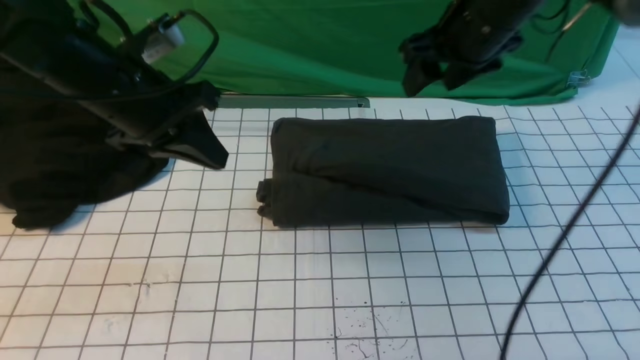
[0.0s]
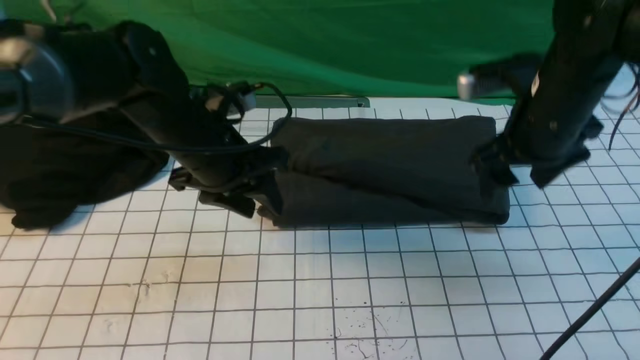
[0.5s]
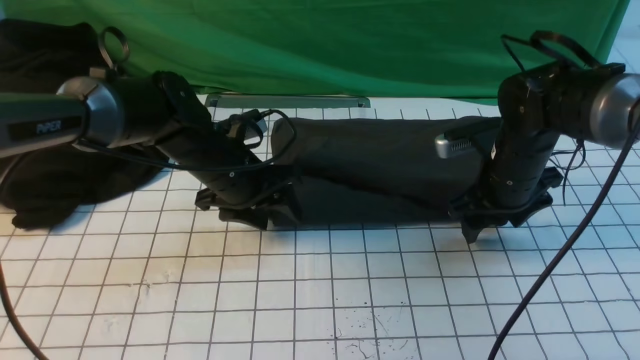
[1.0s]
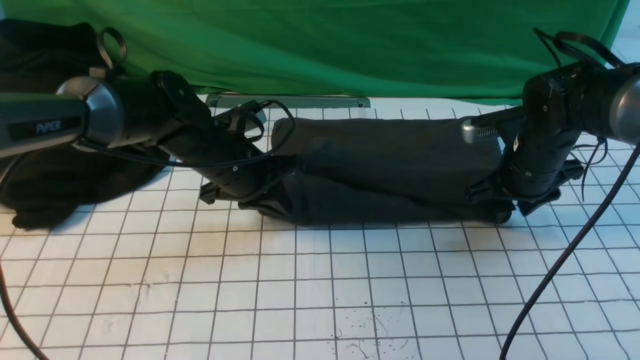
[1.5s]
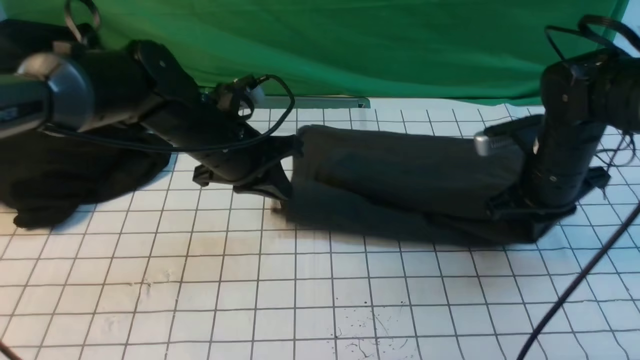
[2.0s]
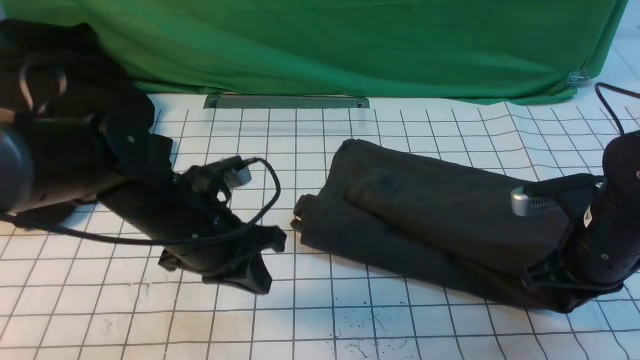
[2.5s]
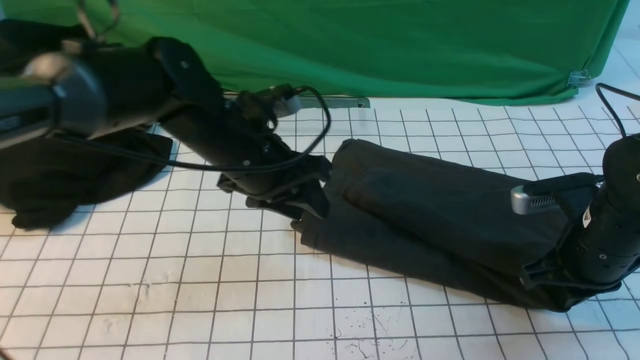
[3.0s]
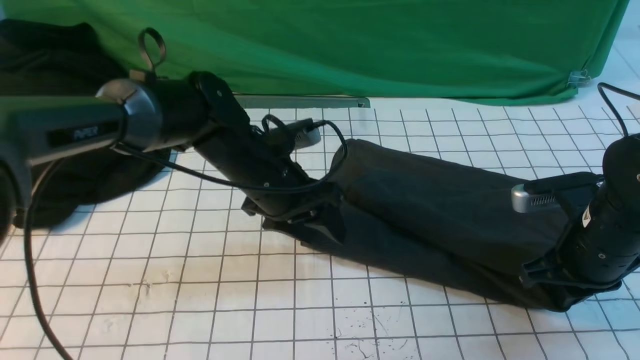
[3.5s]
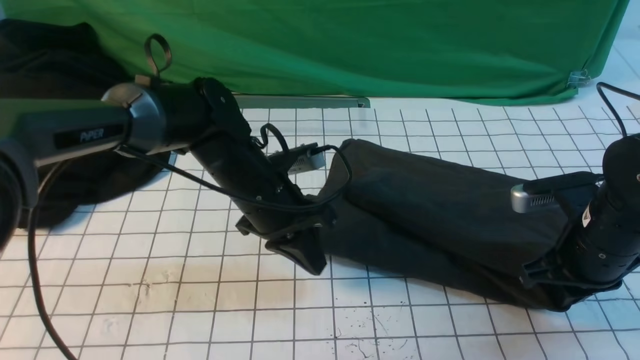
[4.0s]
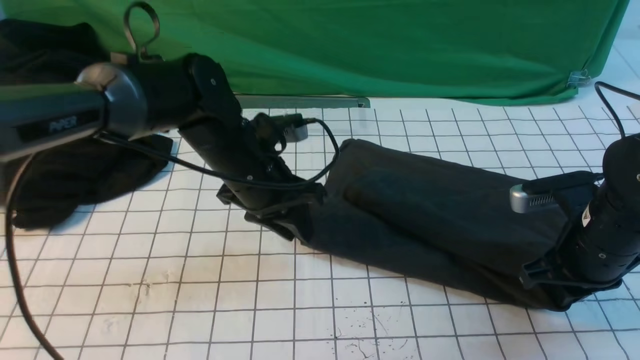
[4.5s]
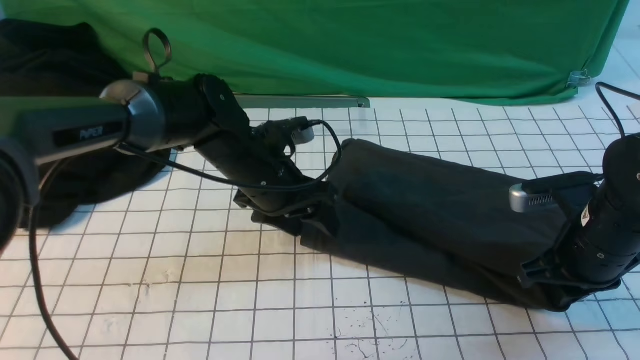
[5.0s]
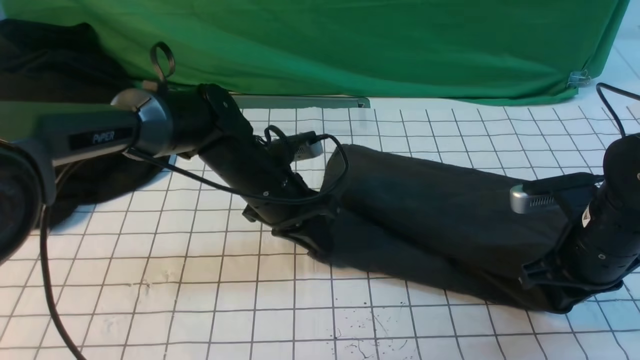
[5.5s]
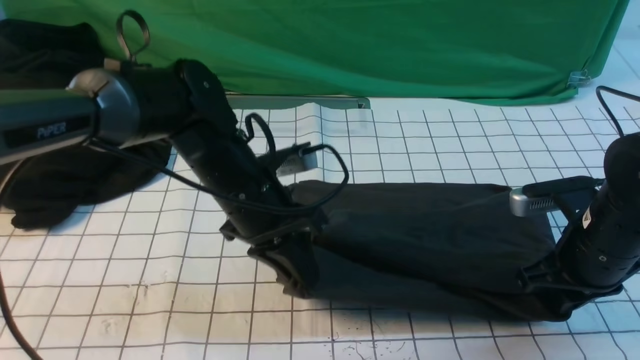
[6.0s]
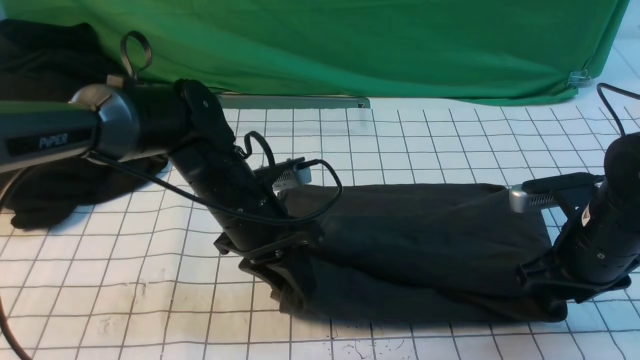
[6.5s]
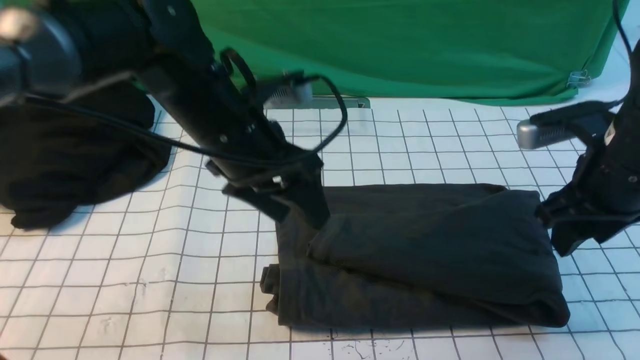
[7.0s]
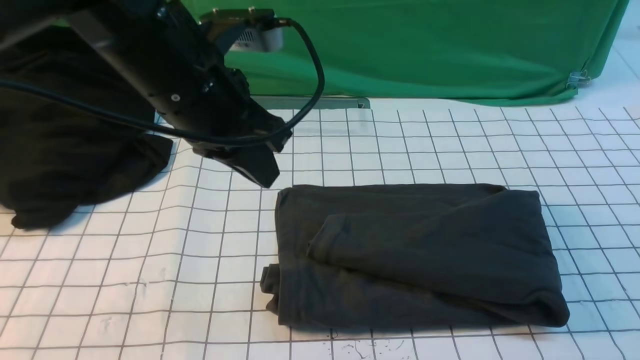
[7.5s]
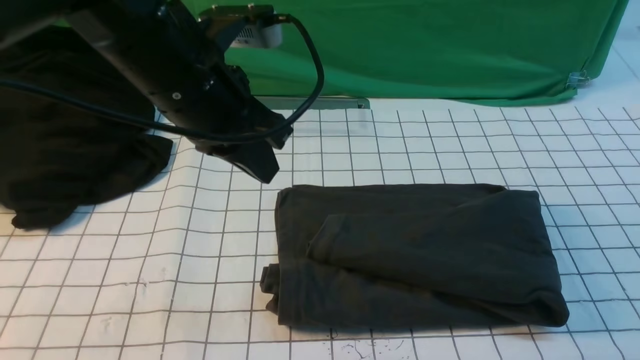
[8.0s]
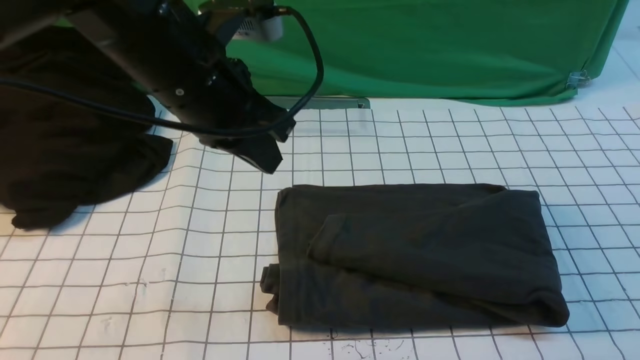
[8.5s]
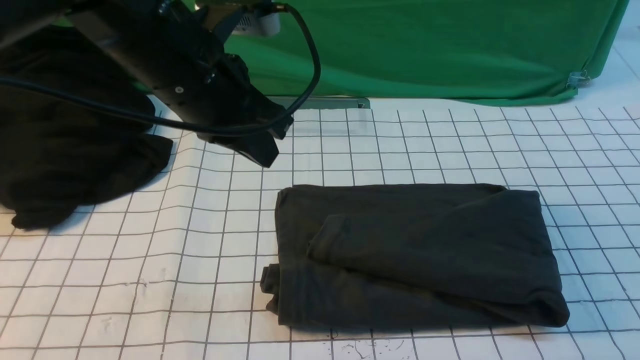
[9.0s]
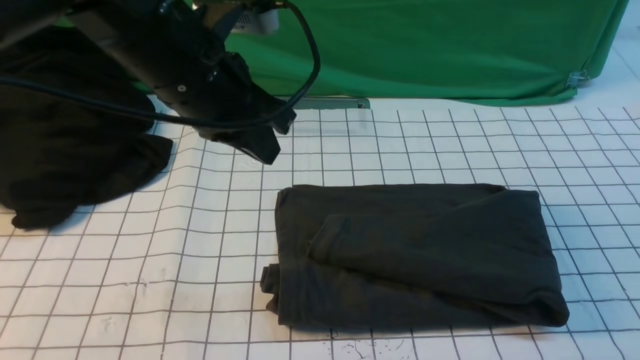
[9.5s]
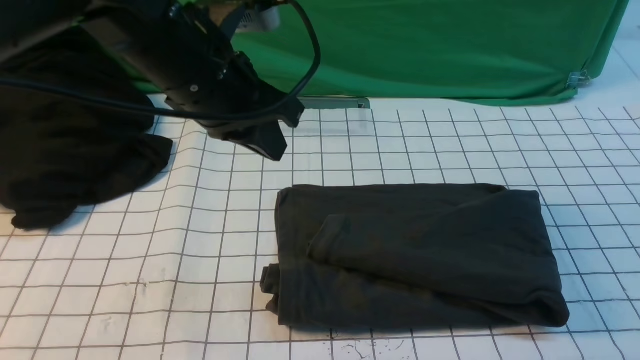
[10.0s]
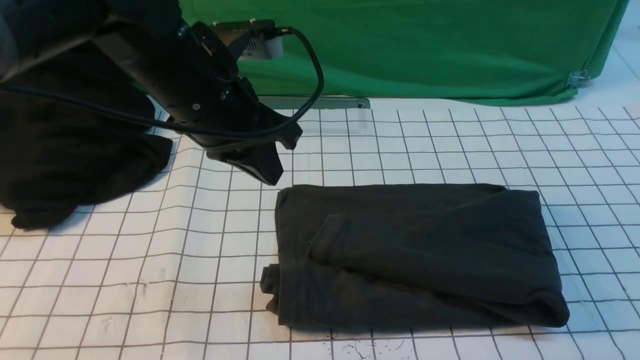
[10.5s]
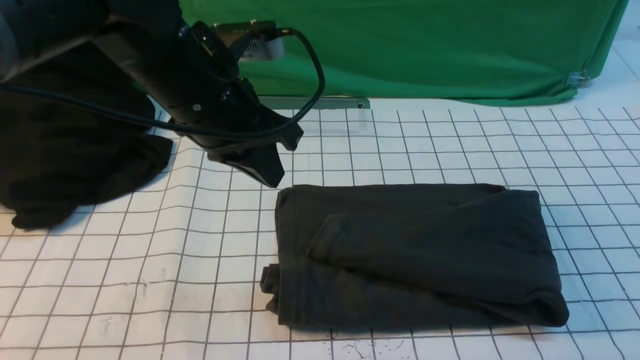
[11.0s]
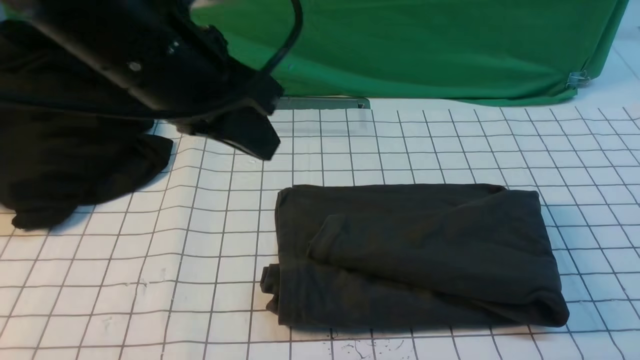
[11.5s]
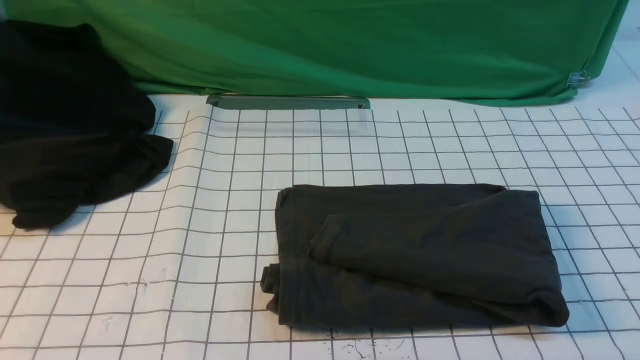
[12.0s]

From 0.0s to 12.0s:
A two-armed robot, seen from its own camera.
From 0.0s to 2.0s: The left gripper moves downward and to the right, roughly 10 cm, and opens and closes again; the right gripper is displaced downward and to the right by roughly 15 cm, and closes up.
From 2.0s to 4.0s: The right gripper goes roughly 10 cm backward; the left gripper opens, then closes once more.
From 4.0s to 6.0s: The left gripper opens, then closes again.
From 6.0s to 8.0s: The left gripper travels upward by approximately 15 cm, and opens, then closes again. Meanwhile the right gripper travels backward and upward by approximately 30 cm, and opens, then closes again.
From 8.0s to 10.0s: The right gripper moves downward, about 20 cm.
From 10.0s to 12.0s: The left gripper travels backward and upward by approximately 25 cm.

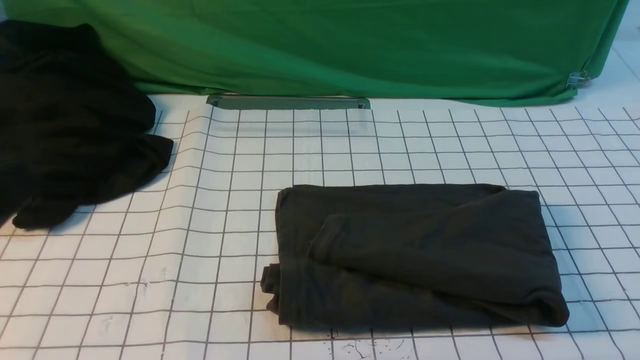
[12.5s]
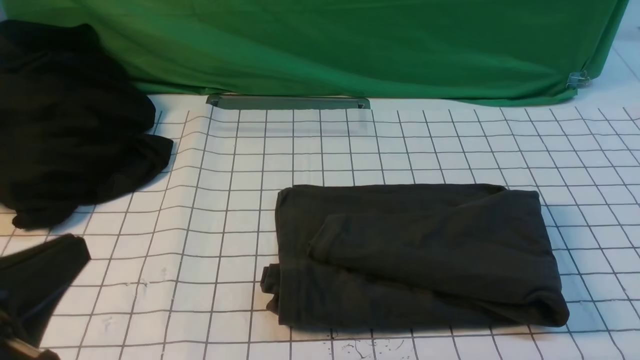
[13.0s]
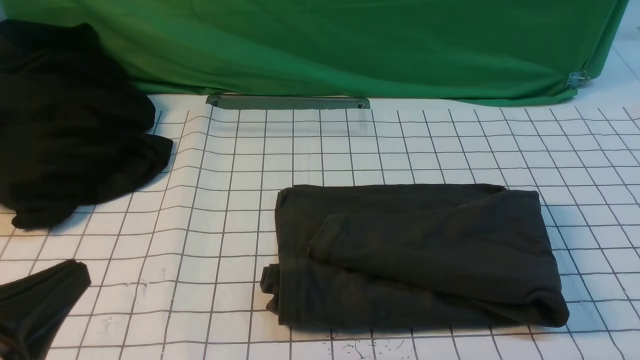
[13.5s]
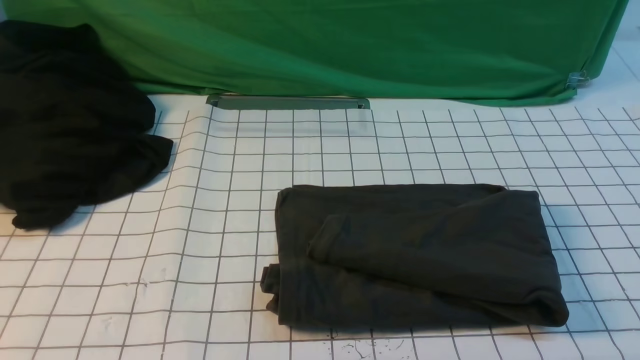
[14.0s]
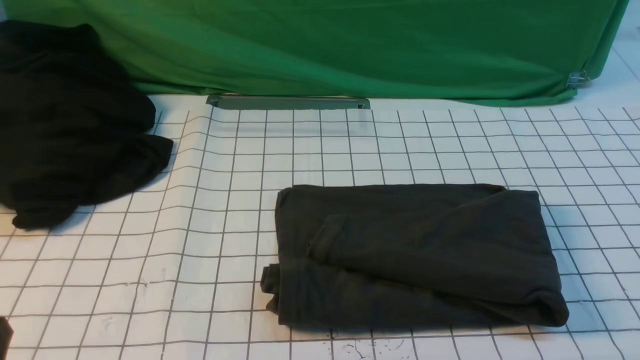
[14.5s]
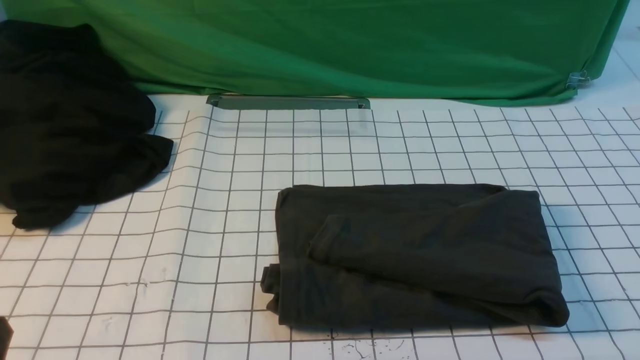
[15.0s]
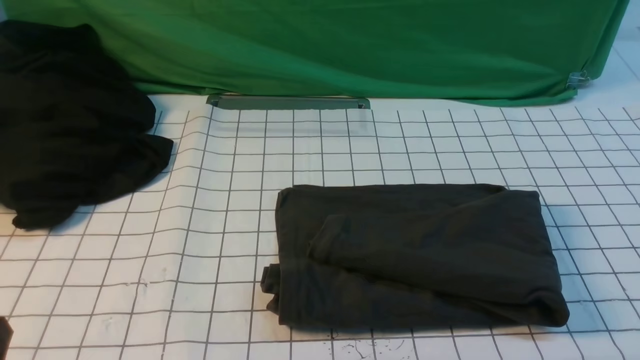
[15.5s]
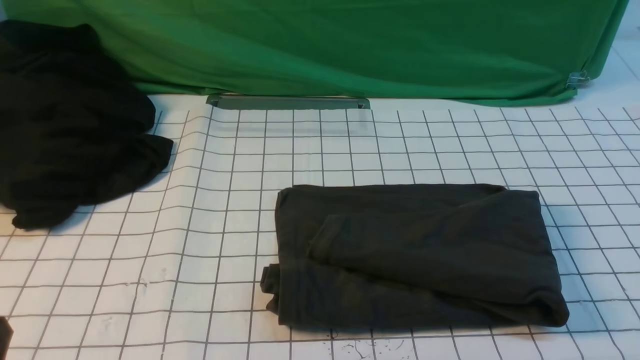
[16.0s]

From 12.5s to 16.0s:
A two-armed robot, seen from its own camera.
From 14.5s to 16.0s: The two grippers keep their place.

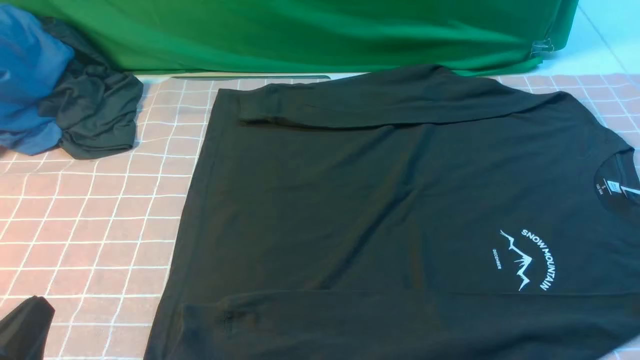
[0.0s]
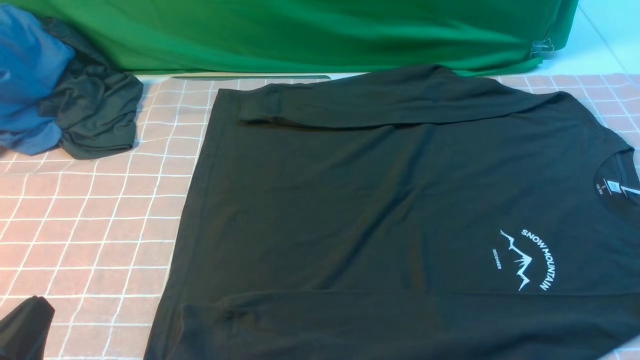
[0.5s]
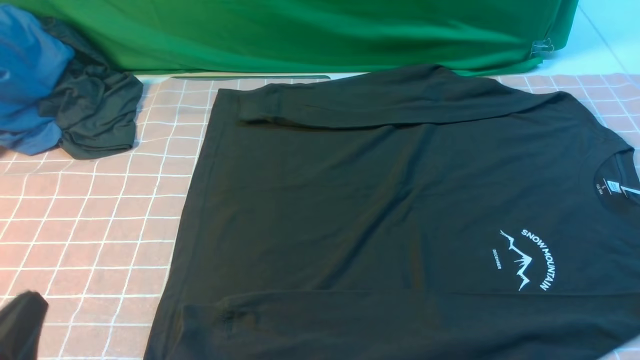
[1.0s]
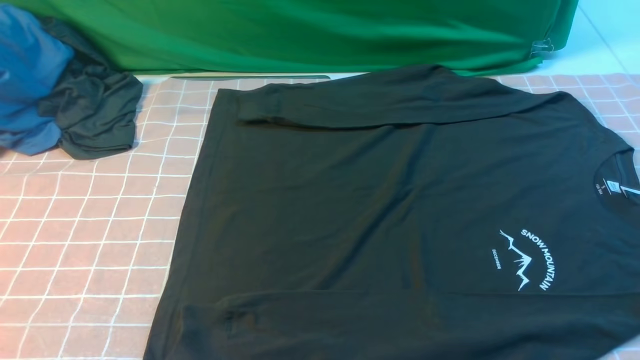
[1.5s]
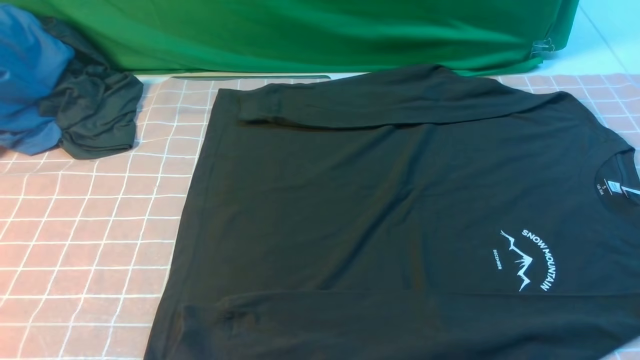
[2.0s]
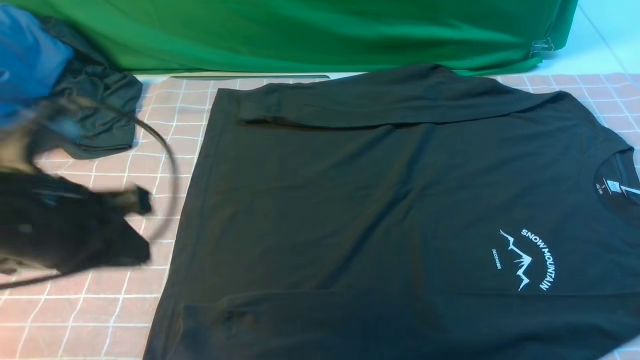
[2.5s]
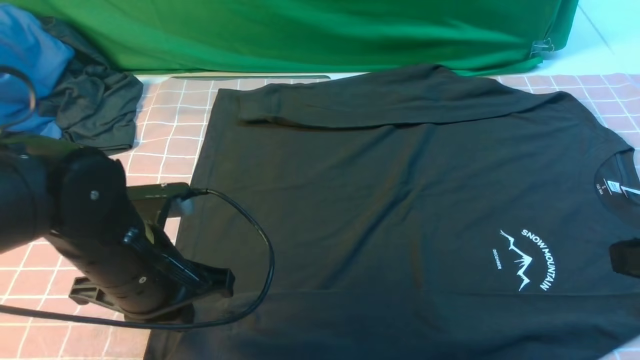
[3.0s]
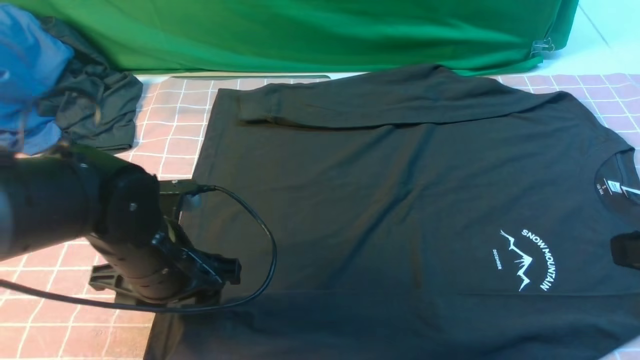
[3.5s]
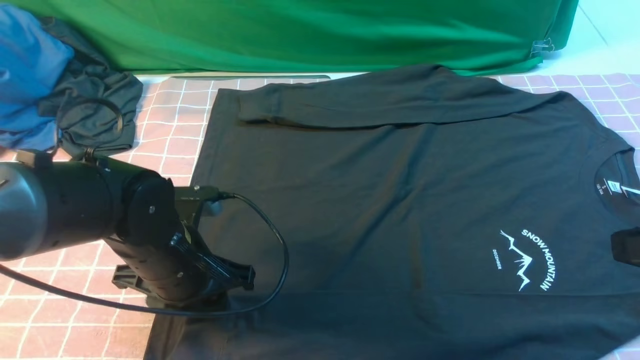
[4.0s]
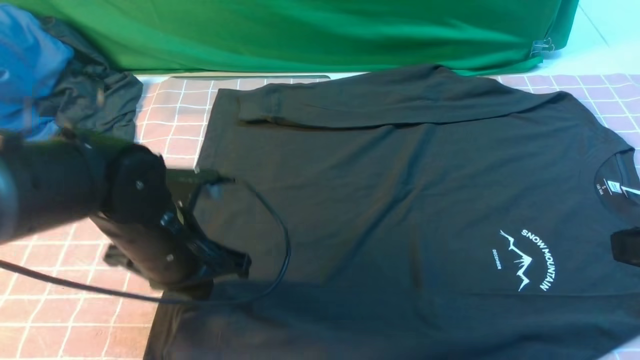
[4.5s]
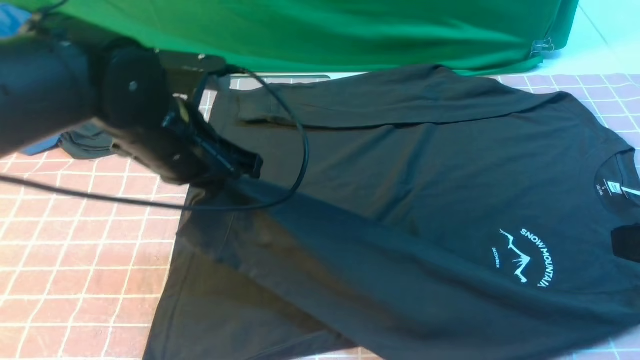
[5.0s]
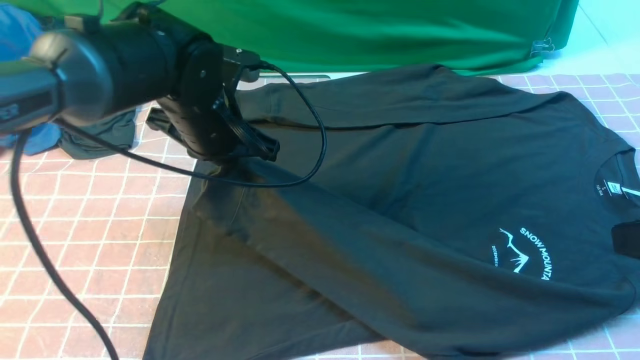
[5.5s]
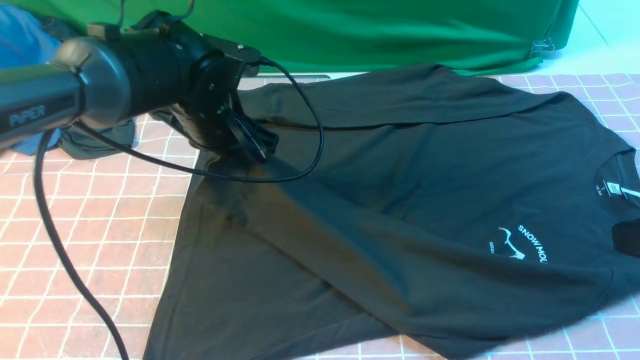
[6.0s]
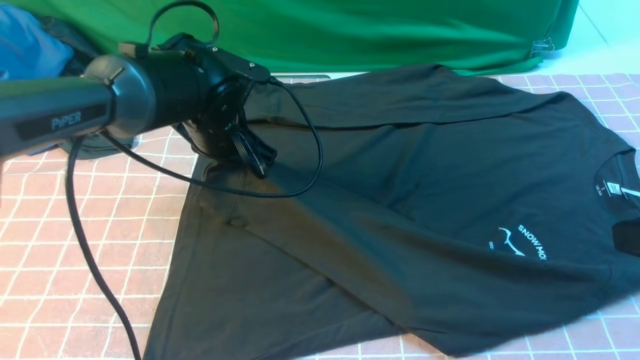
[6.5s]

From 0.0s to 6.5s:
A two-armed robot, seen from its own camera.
Step, from 0.0s to 4.5s: use the left arm to clamp the cuff closest to it.
From 0.0s to 2.0s: The left gripper travels upward by approximately 15 cm.
From 2.0s to 4.5s: The left gripper heads forward, downward and to the right, covering approximately 25 cm, and opens, then closes again. Meanwhile the right gripper travels forward and upward by roughly 10 cm.
From 4.5s to 6.5s: The left gripper shifts about 15 cm forward.
